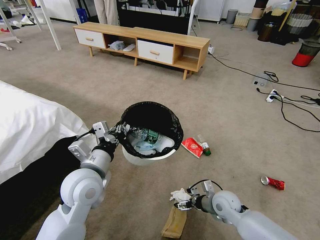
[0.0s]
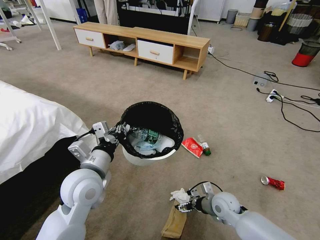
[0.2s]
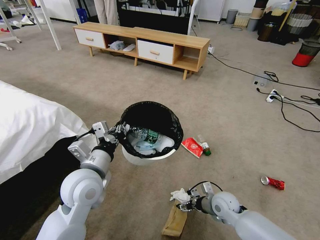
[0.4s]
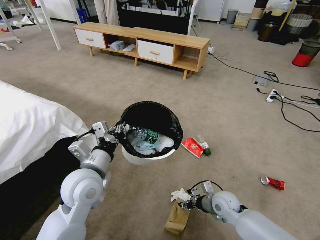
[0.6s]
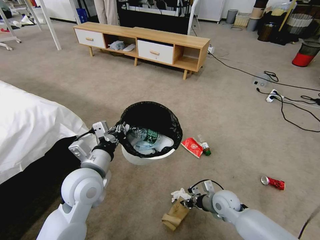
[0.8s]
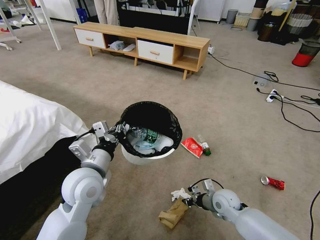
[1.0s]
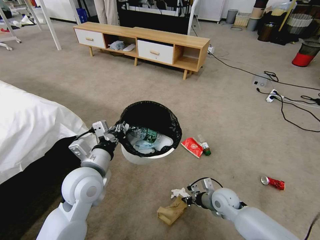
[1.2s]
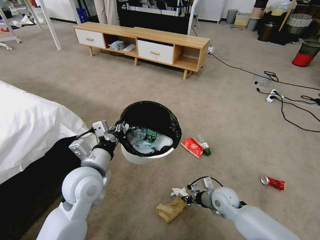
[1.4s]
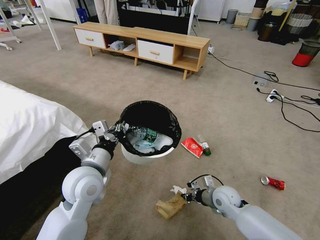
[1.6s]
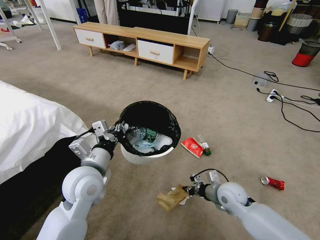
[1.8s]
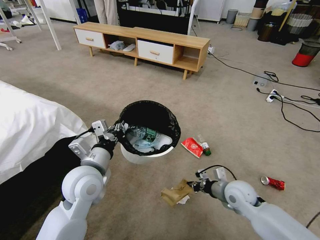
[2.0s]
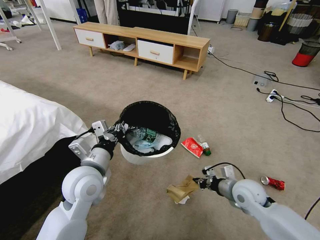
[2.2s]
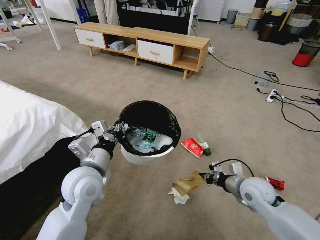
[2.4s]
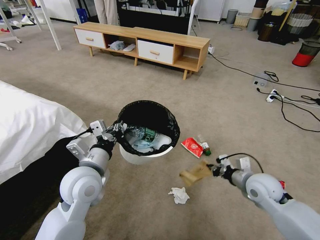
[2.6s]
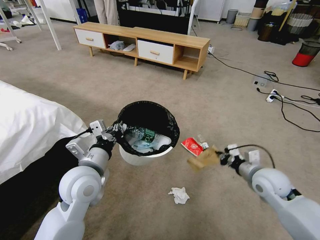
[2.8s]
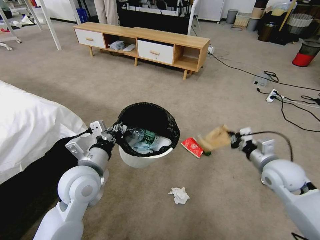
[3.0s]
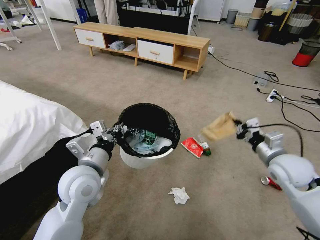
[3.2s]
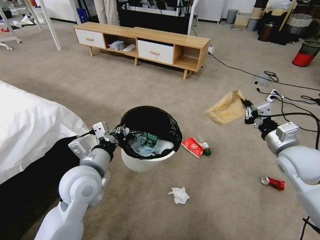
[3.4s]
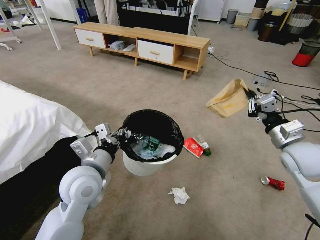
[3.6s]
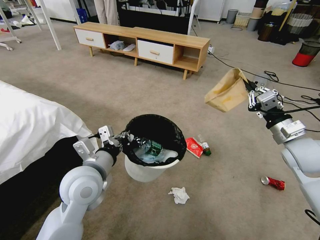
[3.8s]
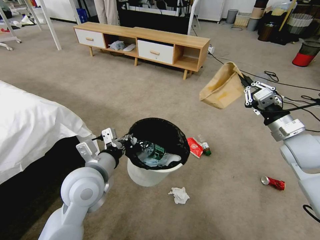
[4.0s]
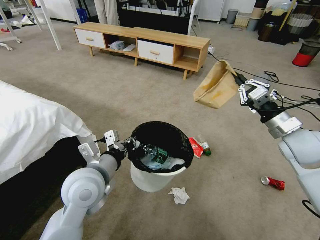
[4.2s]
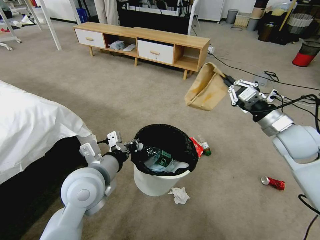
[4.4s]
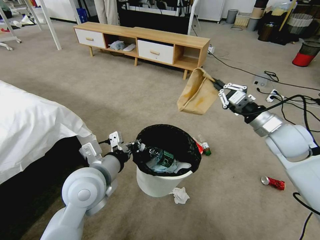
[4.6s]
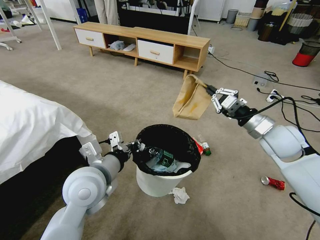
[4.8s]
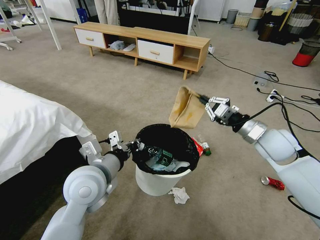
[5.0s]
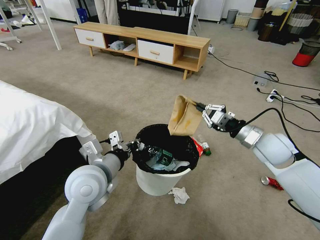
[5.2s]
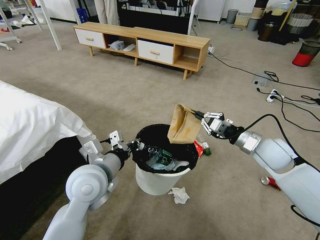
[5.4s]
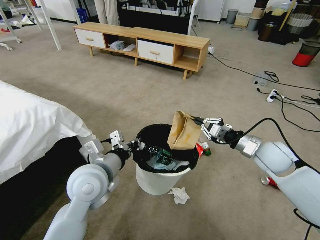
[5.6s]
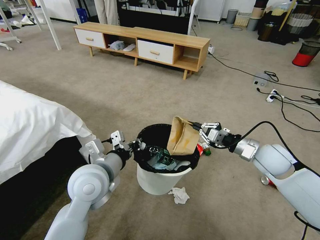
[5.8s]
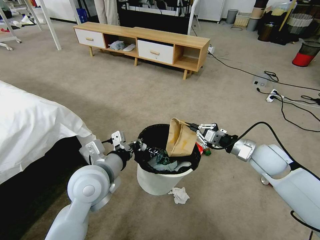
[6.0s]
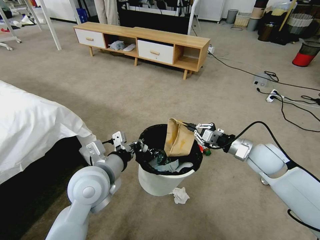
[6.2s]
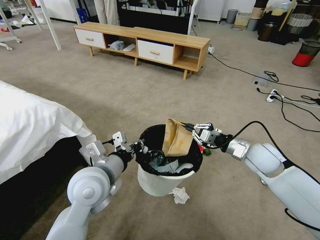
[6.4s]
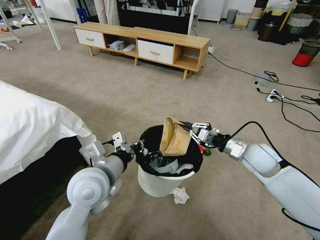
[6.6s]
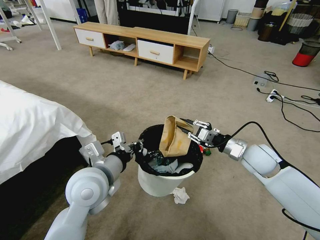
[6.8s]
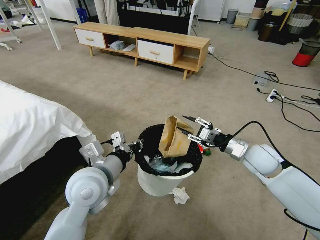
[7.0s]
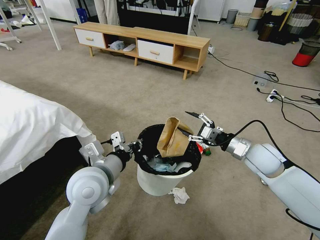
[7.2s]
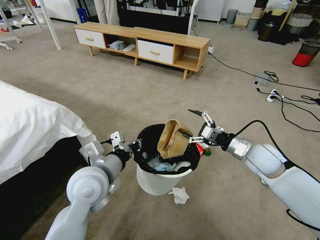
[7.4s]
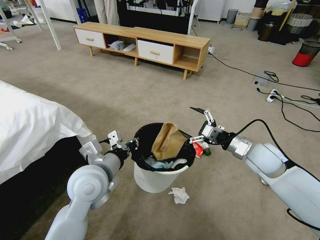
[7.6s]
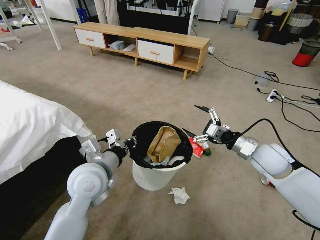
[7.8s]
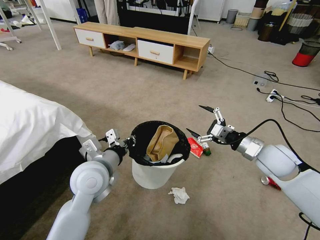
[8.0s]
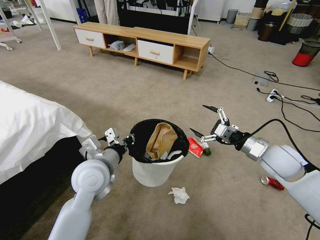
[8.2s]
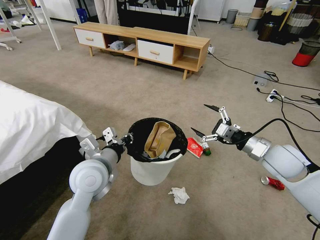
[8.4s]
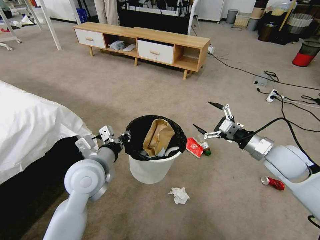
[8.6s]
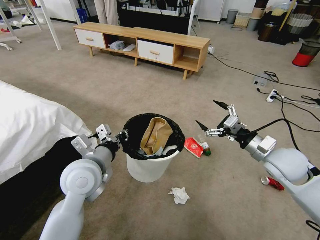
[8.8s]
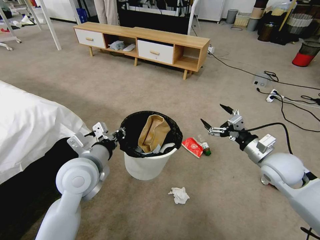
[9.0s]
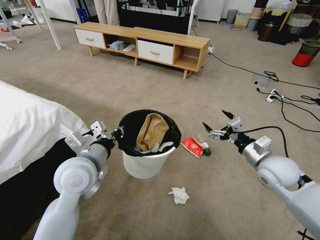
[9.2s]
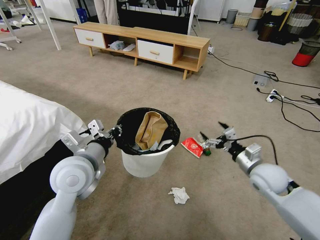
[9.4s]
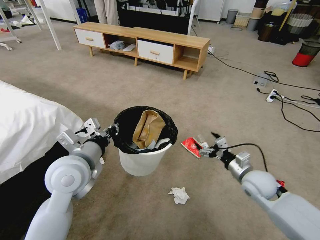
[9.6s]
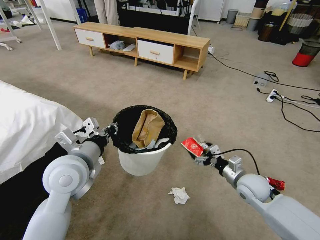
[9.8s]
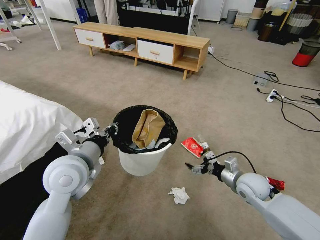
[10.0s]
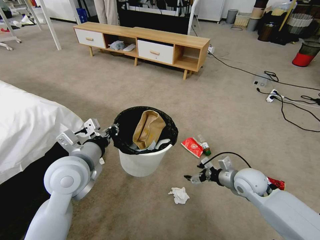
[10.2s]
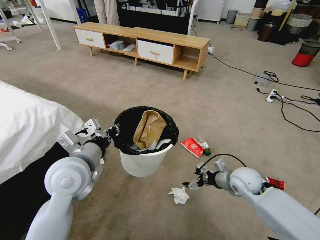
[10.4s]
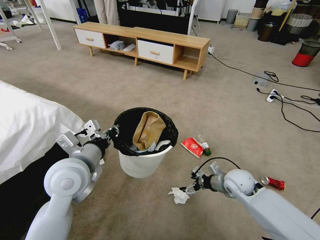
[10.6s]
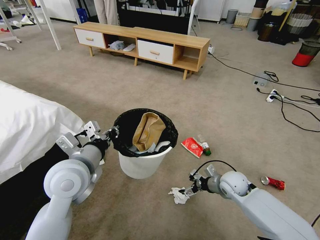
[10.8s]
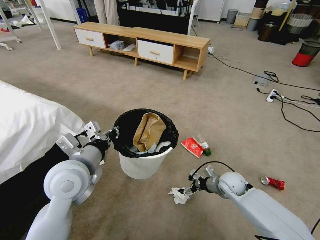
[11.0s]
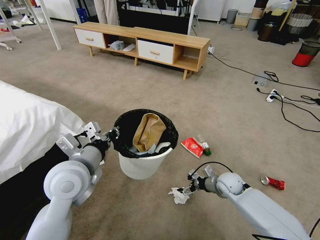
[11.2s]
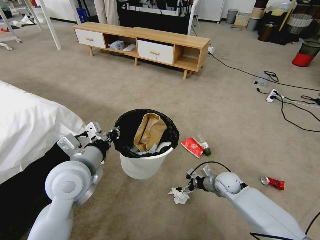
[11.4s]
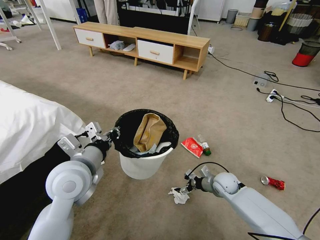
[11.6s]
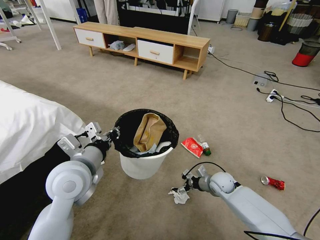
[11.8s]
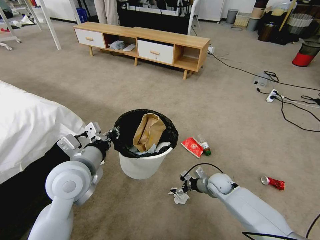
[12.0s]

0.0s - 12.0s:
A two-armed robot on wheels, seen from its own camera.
Task of the whole recording: Pick up the trash bin and place the garbage on the floor into it.
0.0s - 1.6s: The right gripper closes.
1.6s - 3.0s: The right gripper shifts approximately 20 cm upward and to the right.
3.0s - 4.4s: The right gripper goes approximately 10 cm upward and forward.
4.4s - 6.0s: The right gripper goes some 10 cm downward.
6.0s - 7.6s: The right gripper opens.
9.0s - 10.4s: The right gripper is displaced downward and to the left by approximately 15 cm.
10.4s - 12.0s: The right gripper shifts about 10 cm downward.

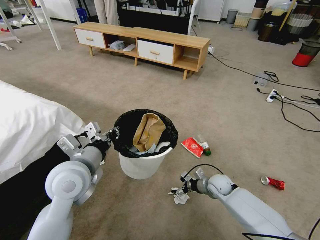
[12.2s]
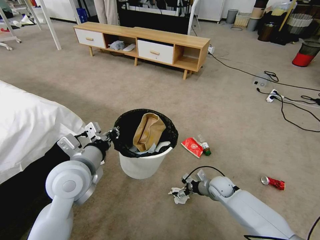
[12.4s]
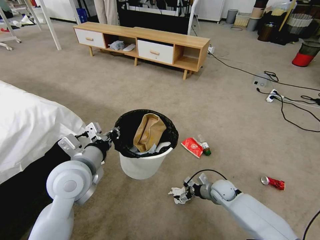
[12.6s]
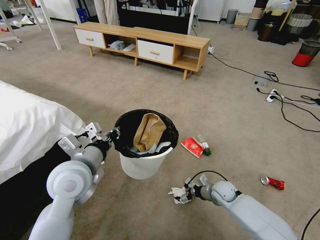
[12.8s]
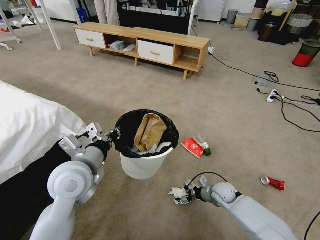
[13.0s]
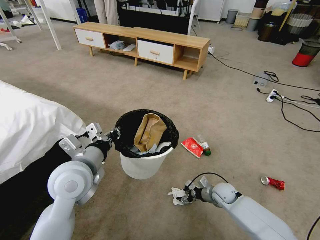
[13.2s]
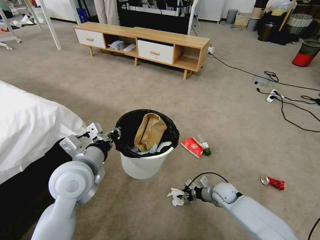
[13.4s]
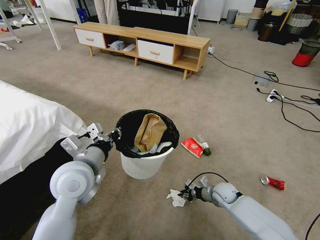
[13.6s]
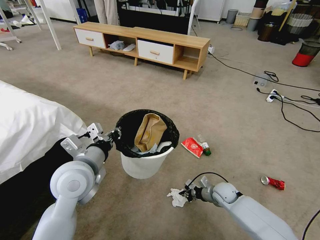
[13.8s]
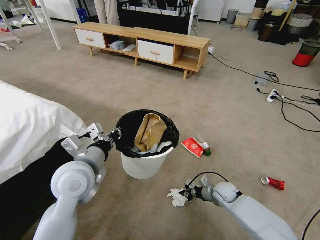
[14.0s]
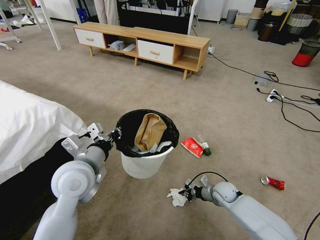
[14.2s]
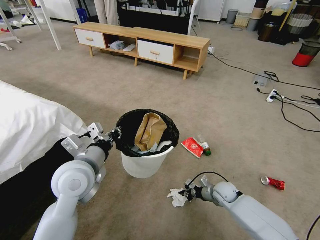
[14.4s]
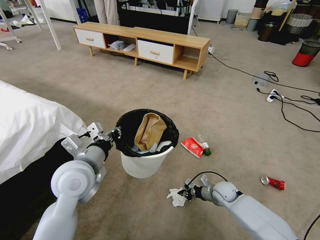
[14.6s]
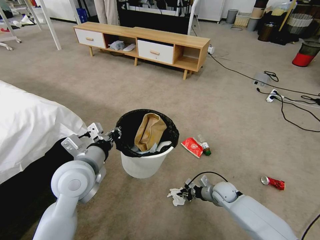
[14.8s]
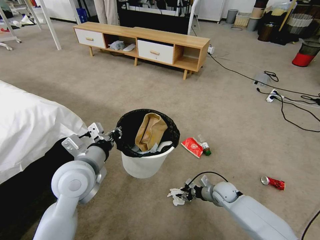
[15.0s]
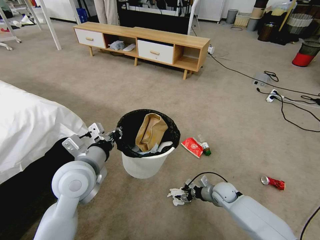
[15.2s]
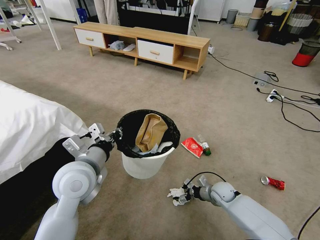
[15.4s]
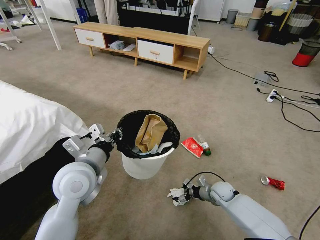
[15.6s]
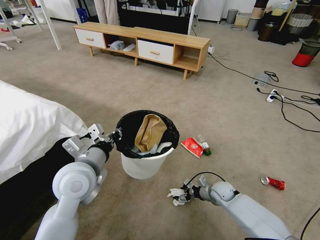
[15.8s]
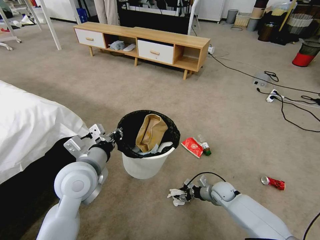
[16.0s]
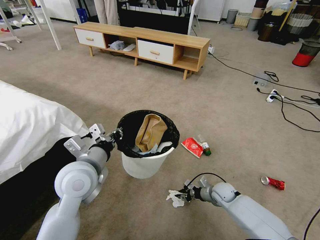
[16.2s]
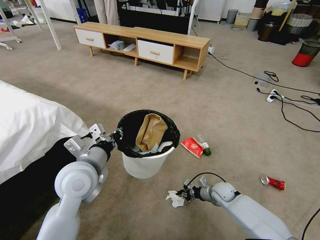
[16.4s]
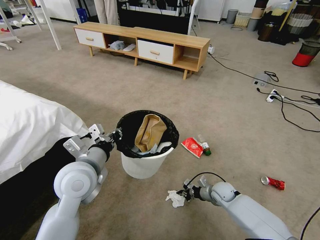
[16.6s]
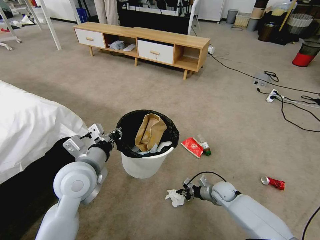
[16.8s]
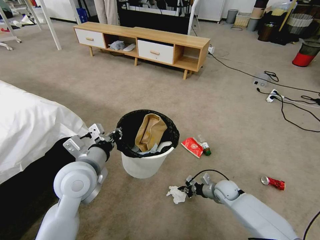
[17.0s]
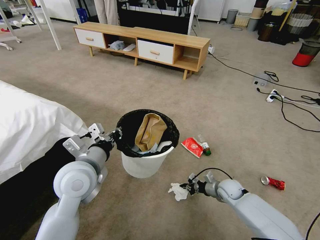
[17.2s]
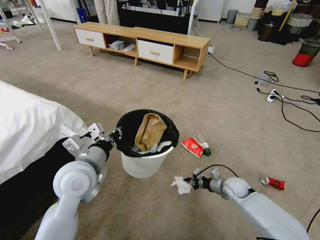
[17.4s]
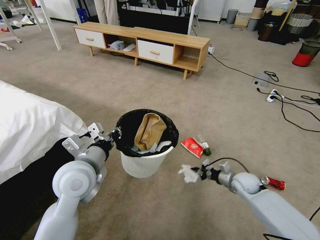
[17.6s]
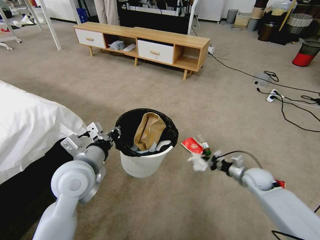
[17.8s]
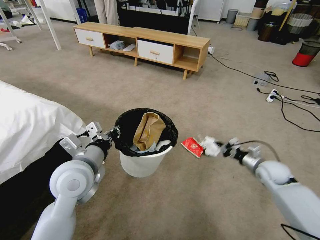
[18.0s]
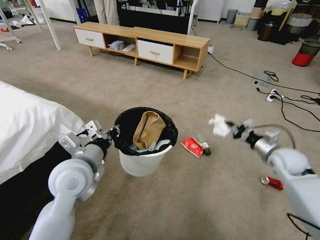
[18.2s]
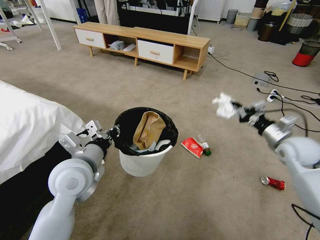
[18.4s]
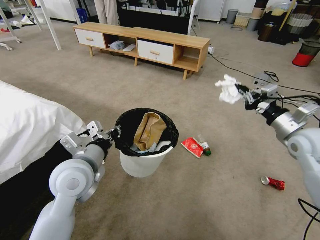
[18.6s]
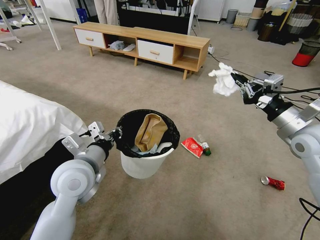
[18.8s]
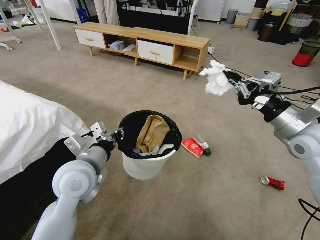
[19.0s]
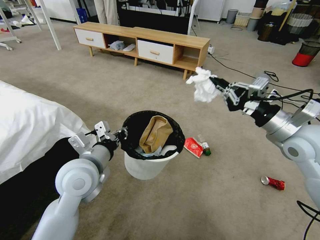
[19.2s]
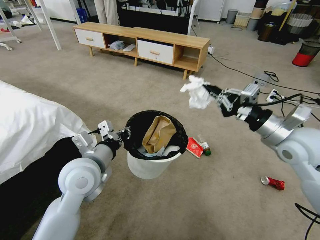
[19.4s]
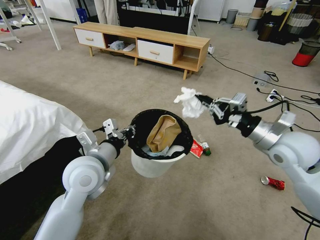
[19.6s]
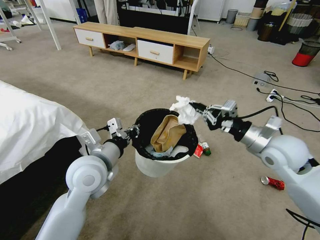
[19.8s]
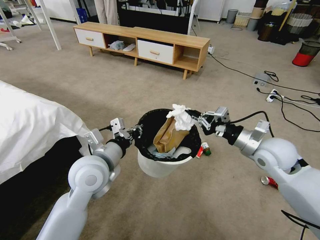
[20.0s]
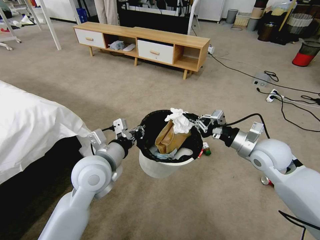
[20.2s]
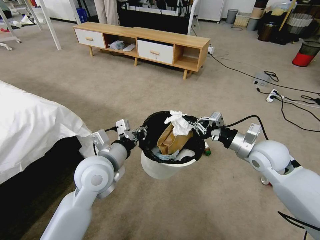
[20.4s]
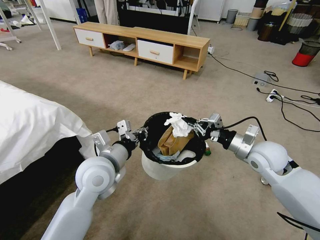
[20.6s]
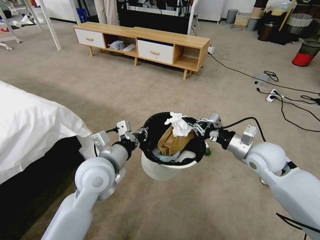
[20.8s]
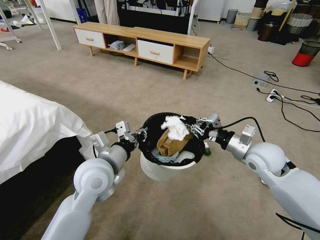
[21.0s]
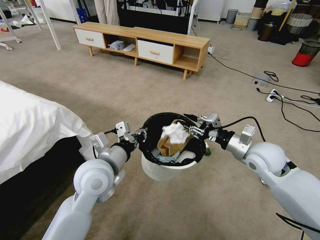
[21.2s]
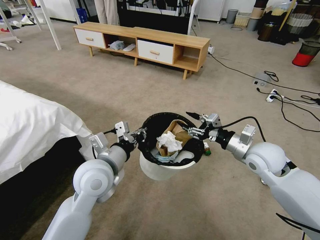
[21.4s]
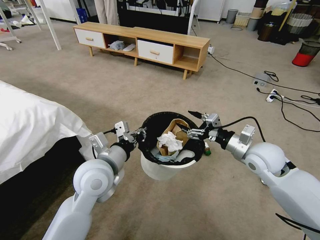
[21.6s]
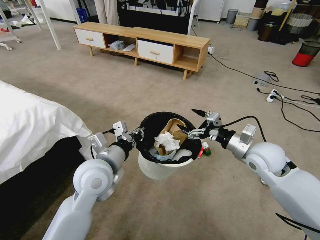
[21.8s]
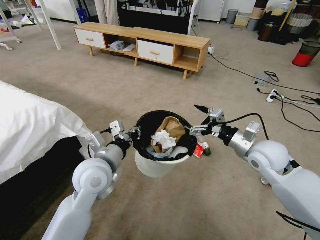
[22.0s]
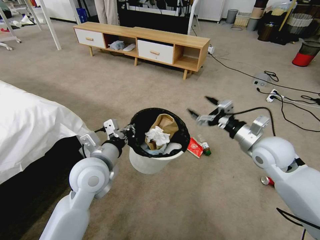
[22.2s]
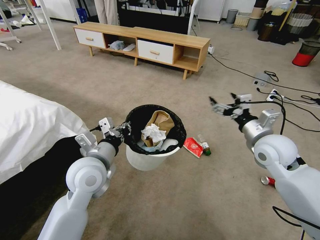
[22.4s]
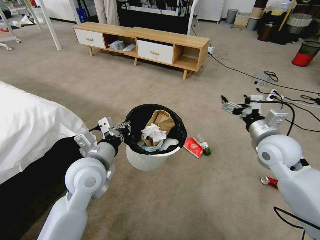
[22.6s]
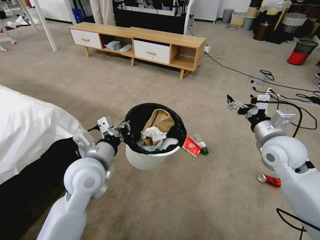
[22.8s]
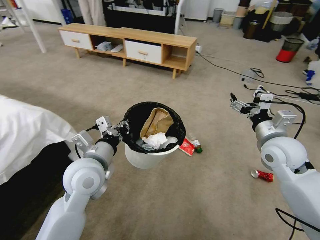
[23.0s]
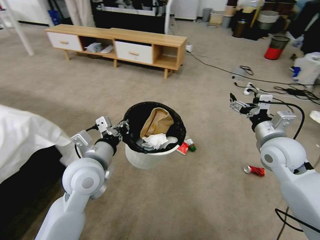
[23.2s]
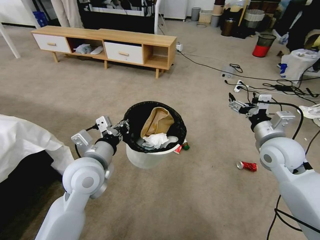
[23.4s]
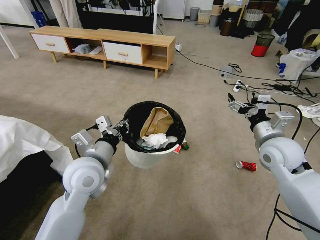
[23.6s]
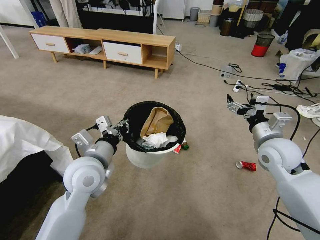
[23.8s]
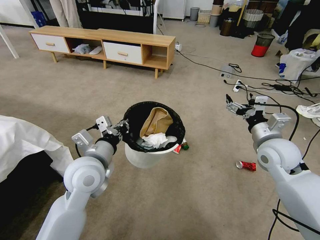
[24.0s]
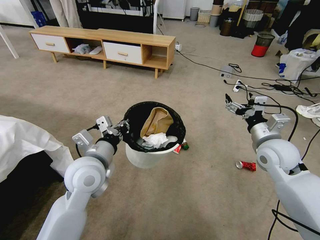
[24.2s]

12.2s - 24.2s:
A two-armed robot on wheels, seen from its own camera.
Task of the whole recording: Pick up the trash bin and place the garbage on the floor into it.
12.2s - 13.8s: The right gripper closes up.
13.8s - 15.2s: The right gripper opens up.
15.2s - 16.6s: The right gripper closes up.
16.6s - 18.2s: The right gripper shifts some 25 cm upward and to the right.
18.2s - 19.8s: The right gripper shifts approximately 15 cm upward and to the left.
19.8s - 21.2s: The right gripper opens up.
21.2s - 22.6s: The right gripper opens.
